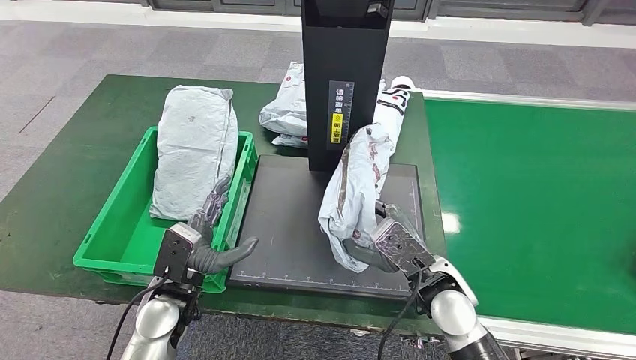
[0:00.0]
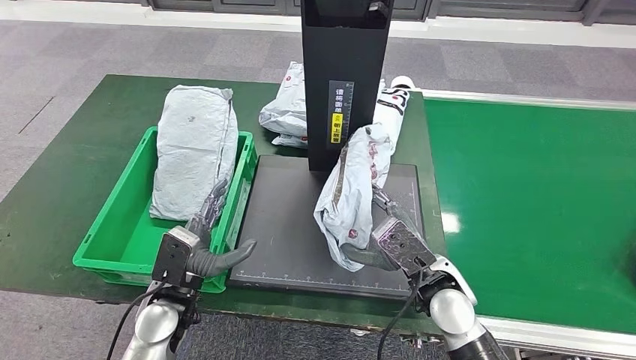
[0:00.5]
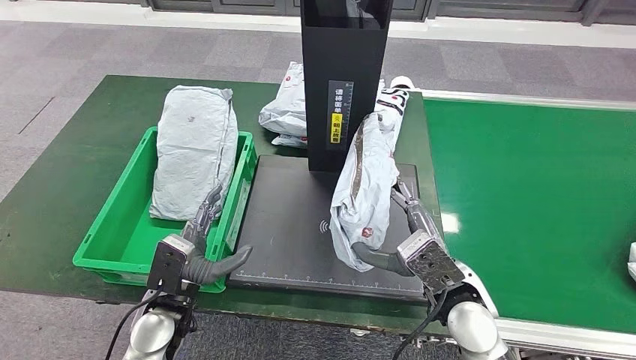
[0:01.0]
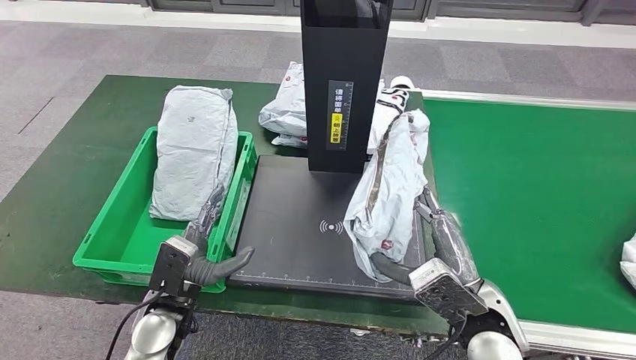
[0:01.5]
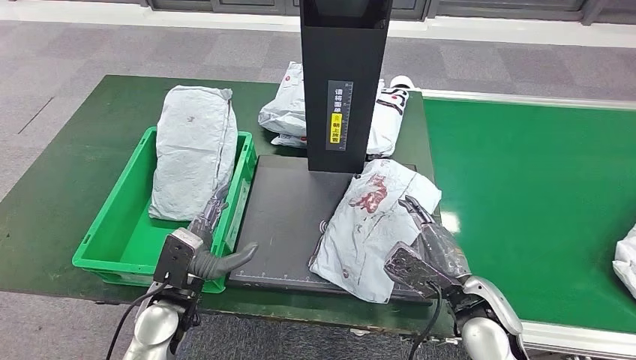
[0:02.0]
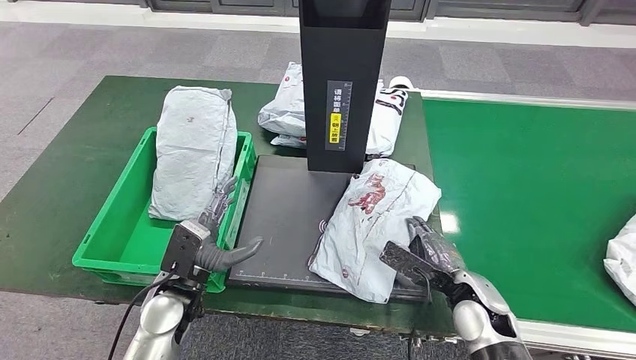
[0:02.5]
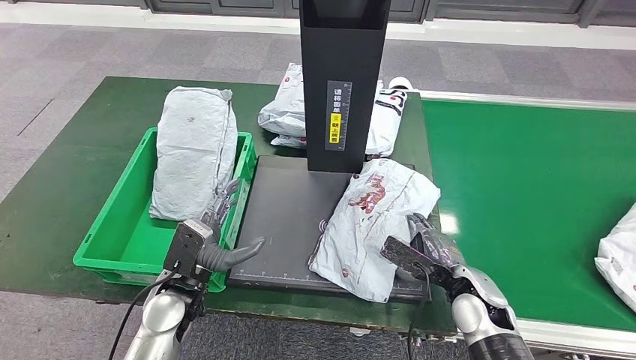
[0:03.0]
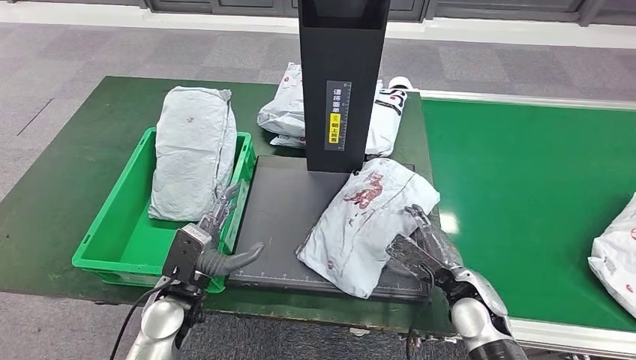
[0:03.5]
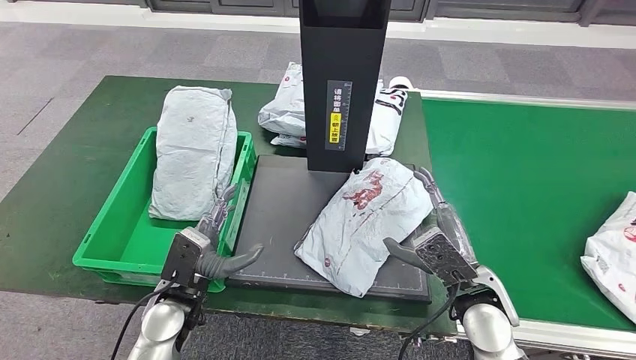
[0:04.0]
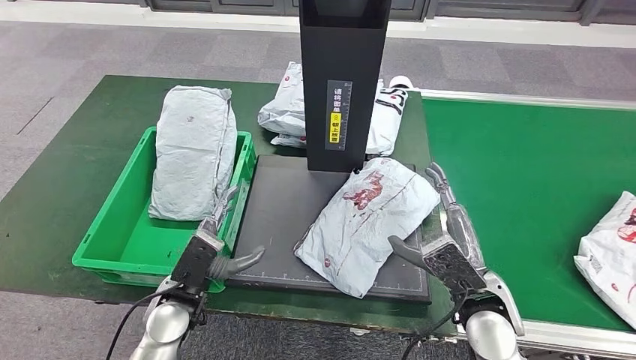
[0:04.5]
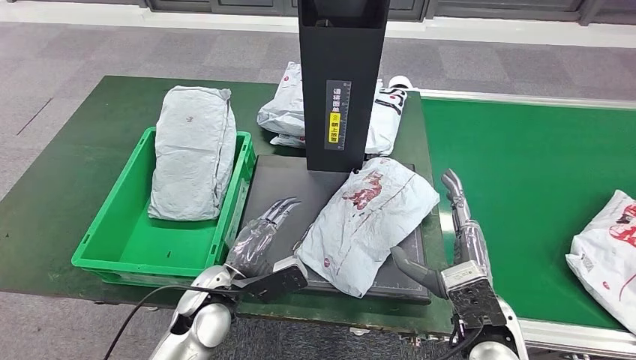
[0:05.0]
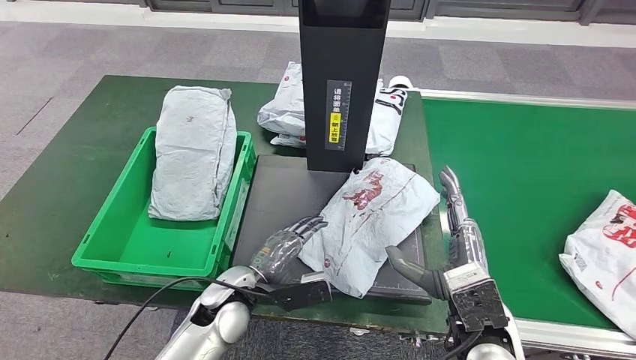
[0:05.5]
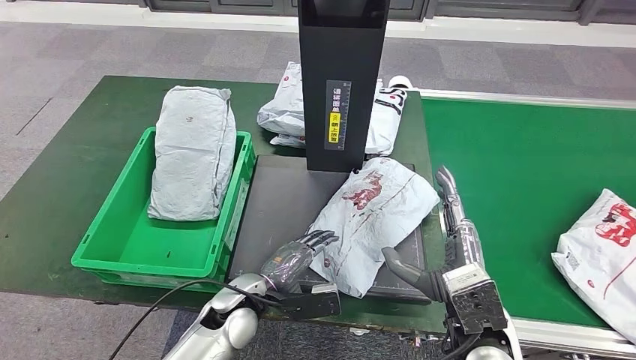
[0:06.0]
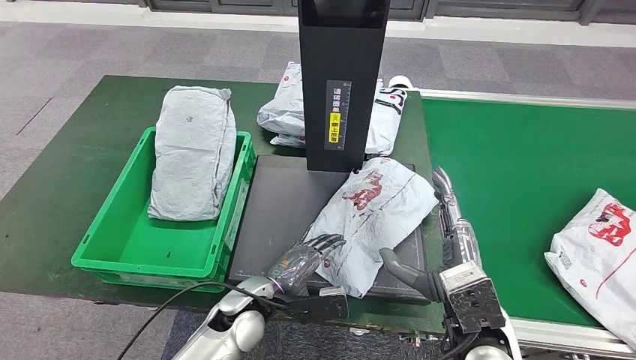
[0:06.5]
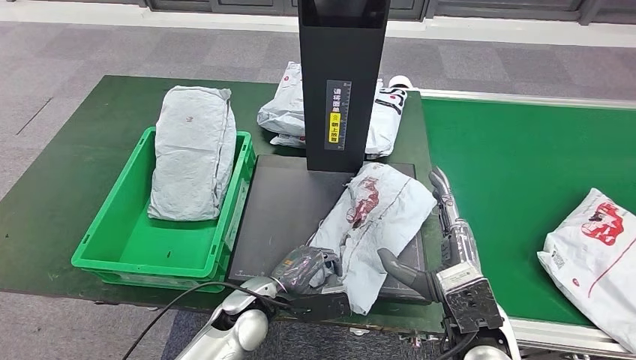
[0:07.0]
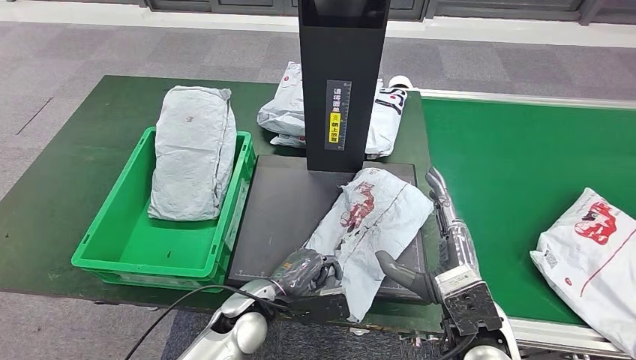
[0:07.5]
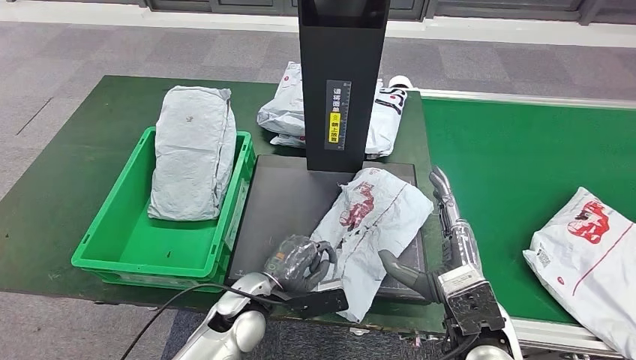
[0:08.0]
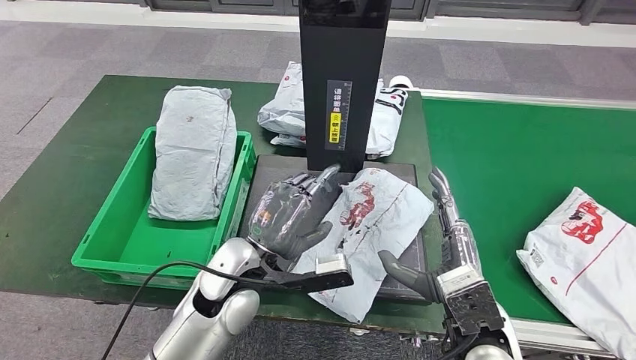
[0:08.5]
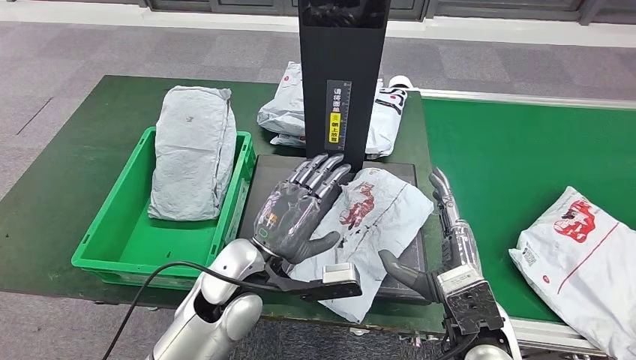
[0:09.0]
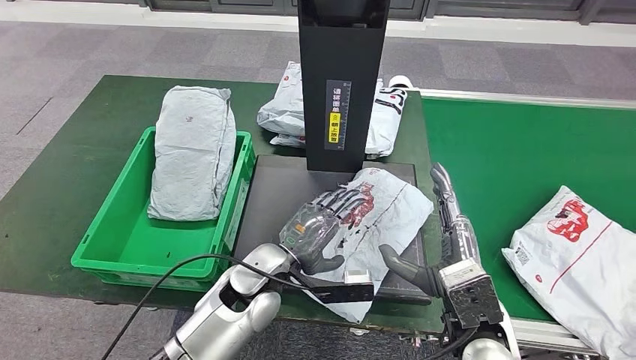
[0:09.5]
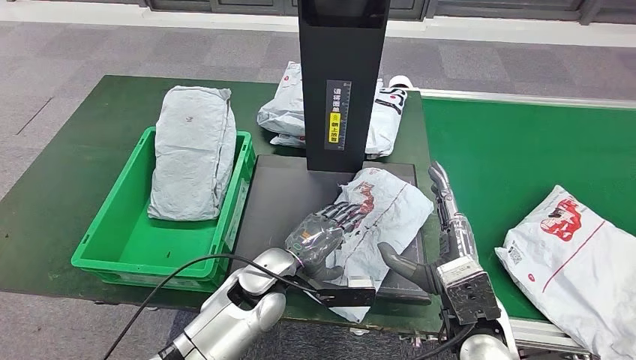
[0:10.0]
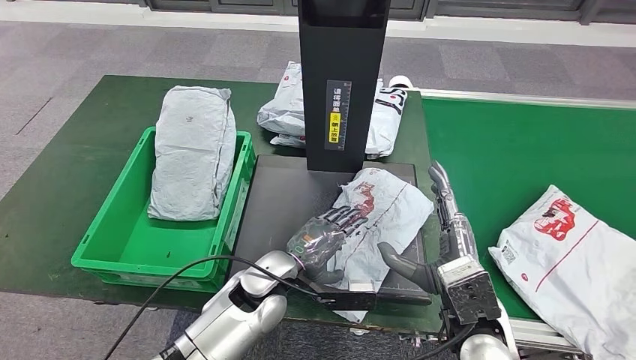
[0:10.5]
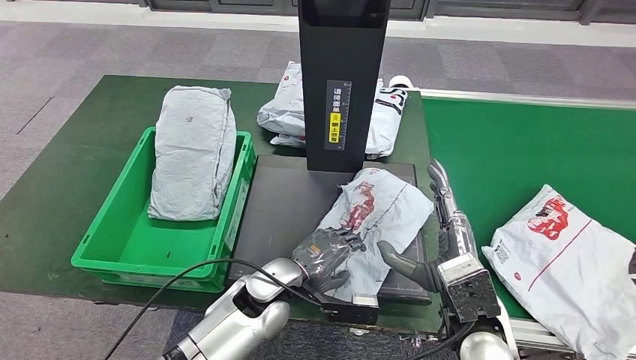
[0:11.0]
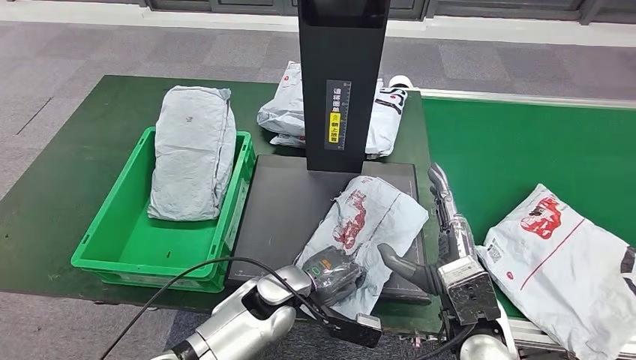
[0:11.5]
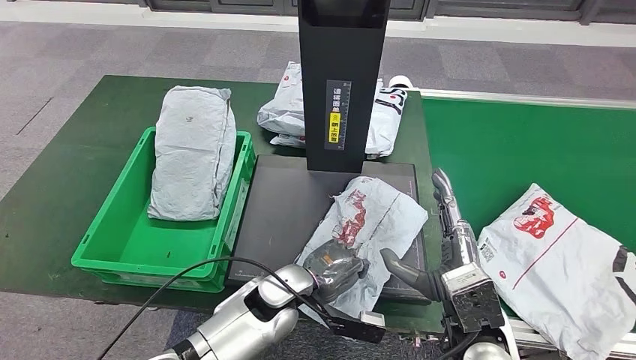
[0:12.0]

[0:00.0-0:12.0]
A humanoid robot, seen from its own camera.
Step, 0:00.0 to 0:02.0: Place the parcel onto the inbound machine.
0:00.0 to 0:02.0: The right hand heads to the right, covering some 5 cm.
0:04.0 to 0:06.0: The right hand moves backward, roughly 5 cm. The left hand goes about 10 cm to the right.
0:06.0 to 0:08.0: The hands make only small movements.
0:08.0 to 0:10.0: The left hand reaches about 10 cm upward, then returns.
0:10.0 to 0:12.0: The hands make only small movements.

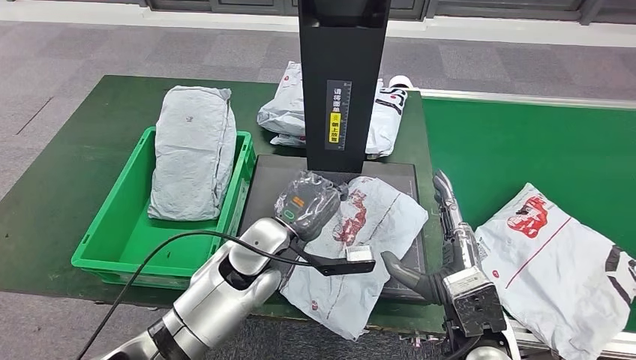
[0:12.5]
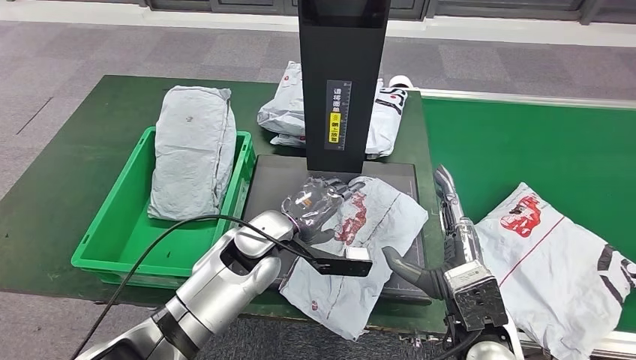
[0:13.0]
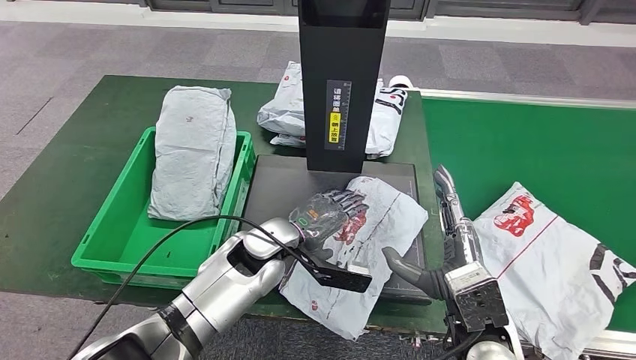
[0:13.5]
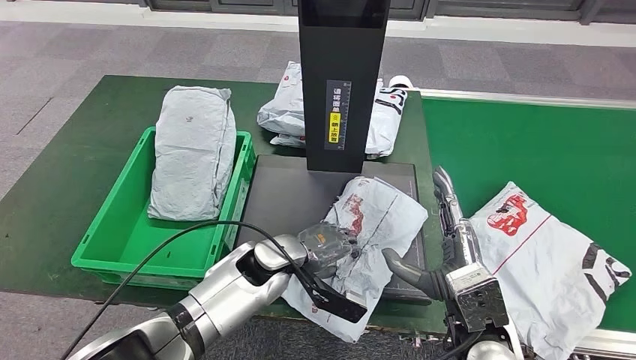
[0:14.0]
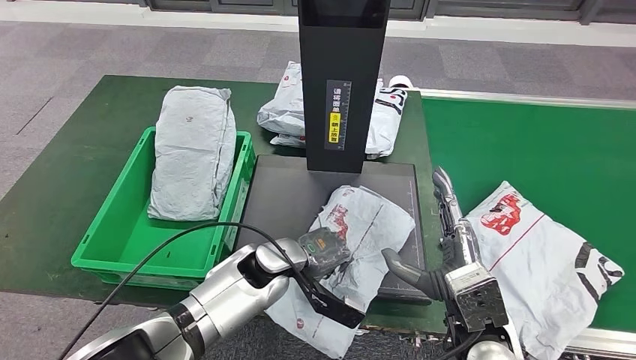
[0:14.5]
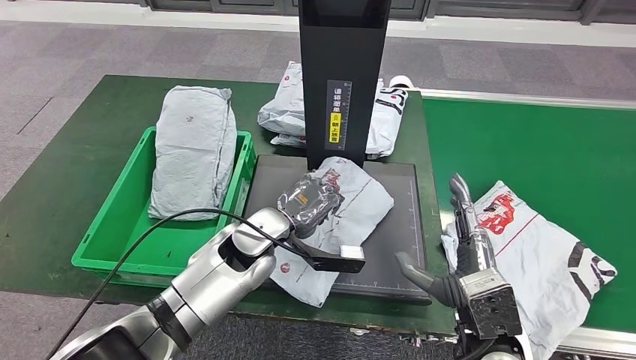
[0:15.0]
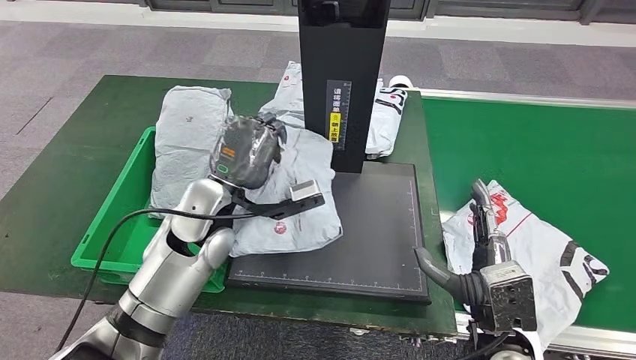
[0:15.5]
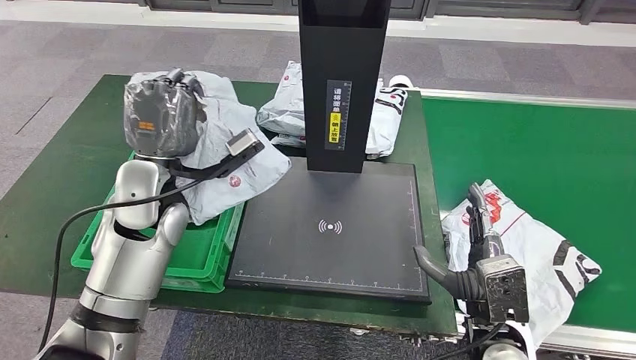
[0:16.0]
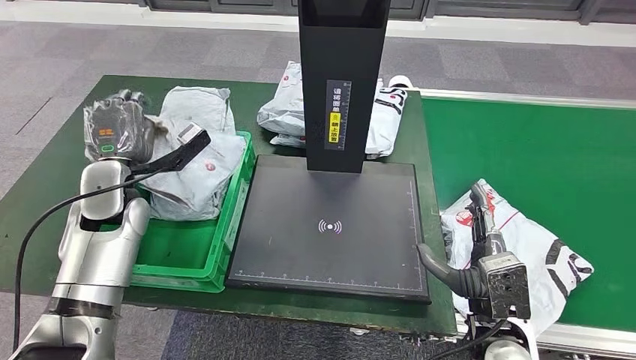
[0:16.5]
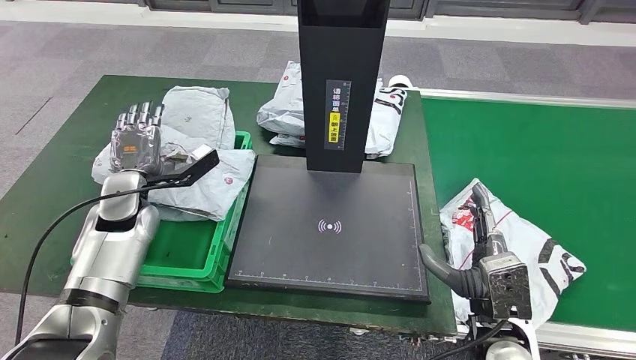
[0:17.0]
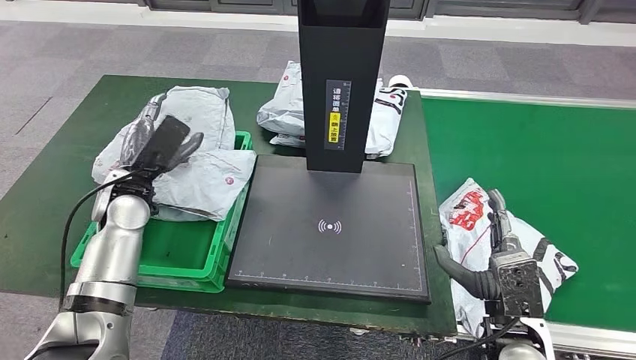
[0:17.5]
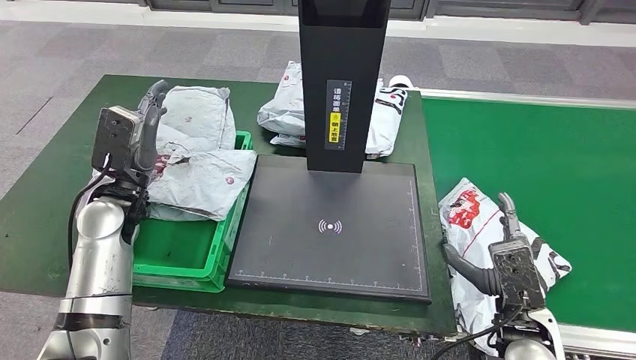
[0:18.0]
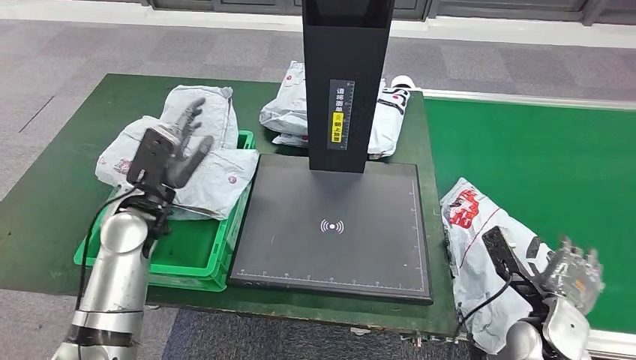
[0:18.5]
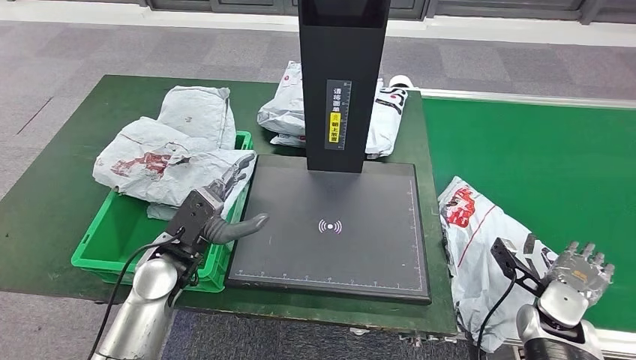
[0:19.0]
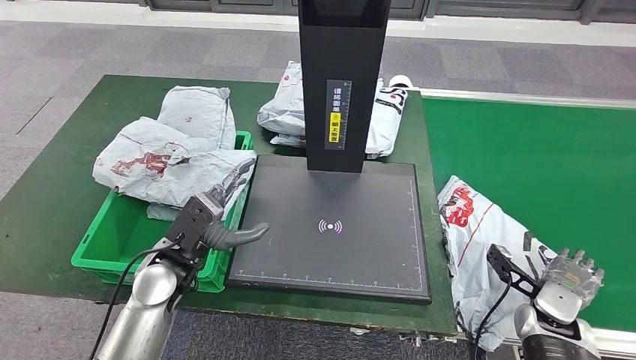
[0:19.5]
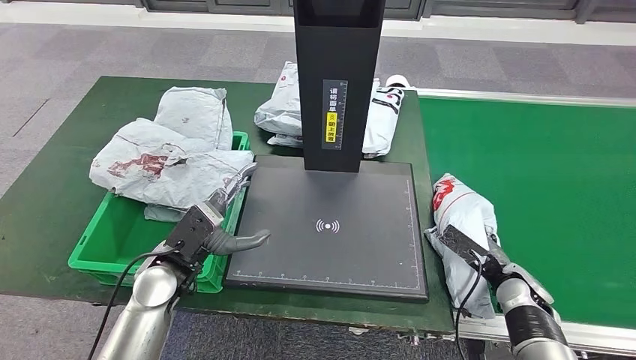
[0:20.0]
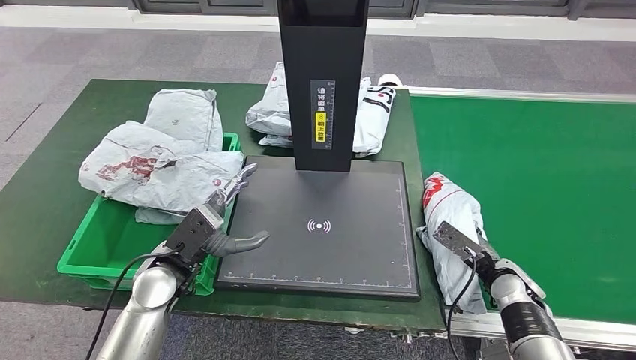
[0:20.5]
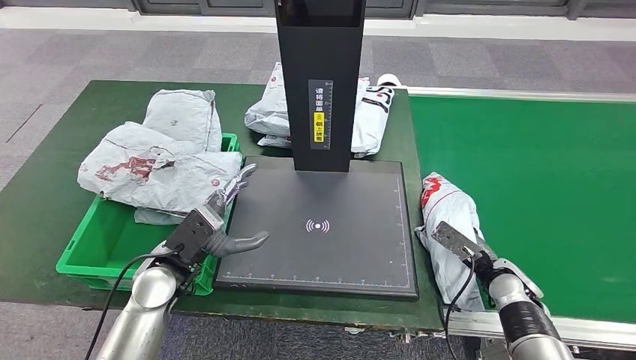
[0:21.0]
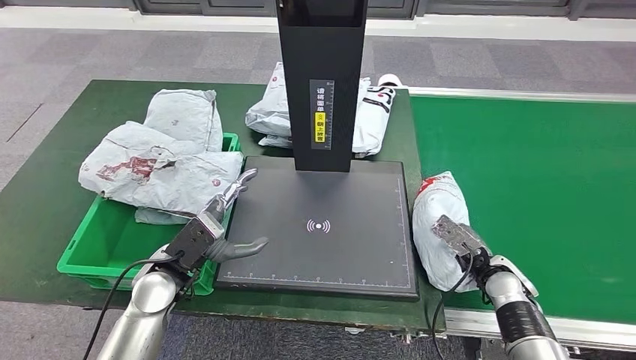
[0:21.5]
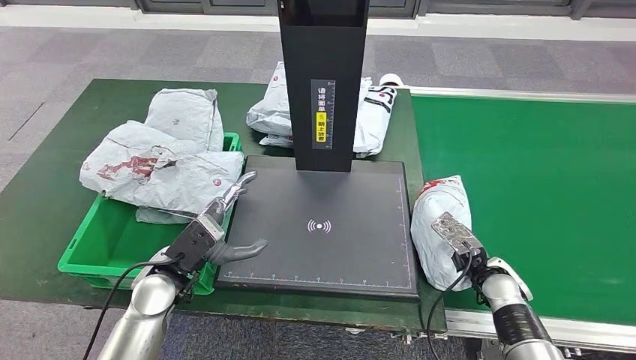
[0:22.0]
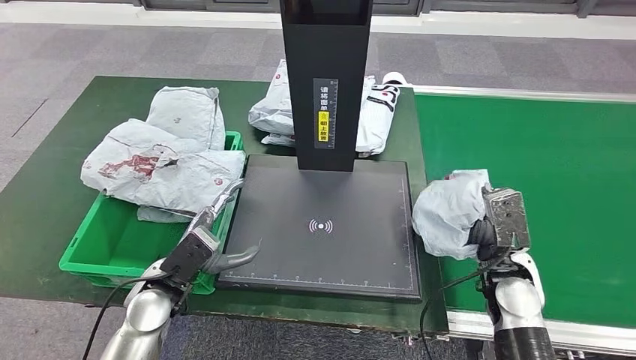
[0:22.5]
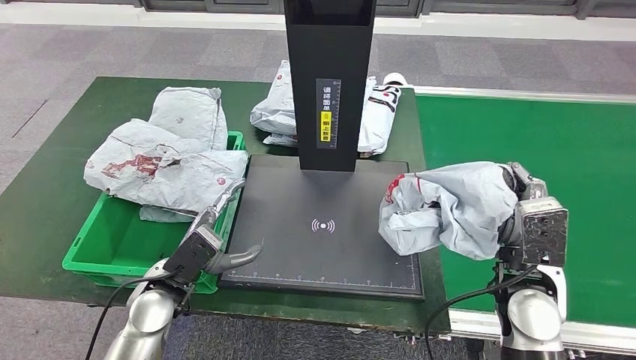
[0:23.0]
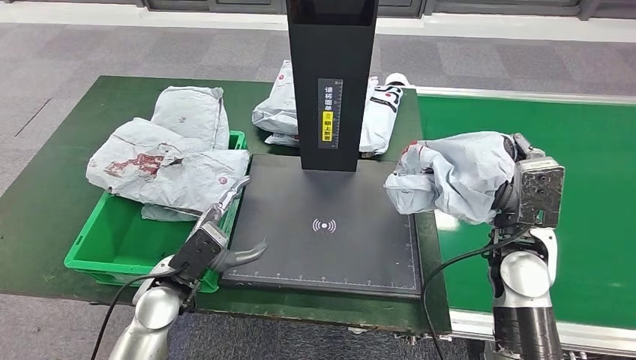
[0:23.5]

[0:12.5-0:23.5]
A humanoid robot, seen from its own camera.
Step, 0:12.5 to 0:16.0: Pick up the parcel from the inbound machine.
Step, 0:16.5 to 0:19.0: Place the parcel into the delivery box.
Step, 0:19.5 to 0:23.0: Pick up the parcel from the conveyor belt.
0:12.5 to 0:14.5: The left hand travels downward by approximately 5 cm.
